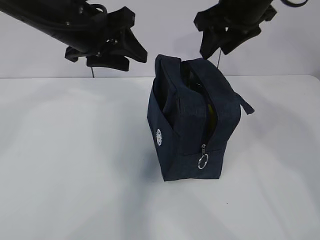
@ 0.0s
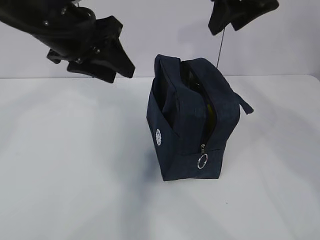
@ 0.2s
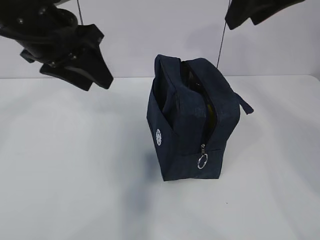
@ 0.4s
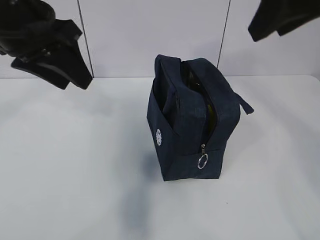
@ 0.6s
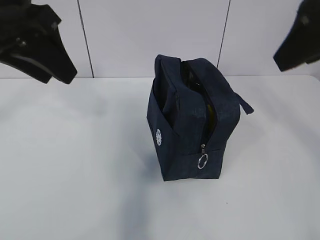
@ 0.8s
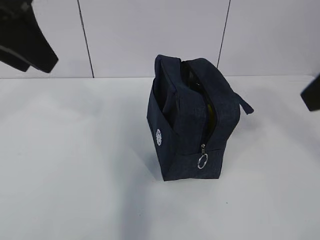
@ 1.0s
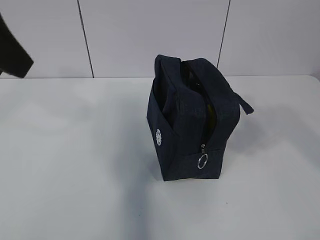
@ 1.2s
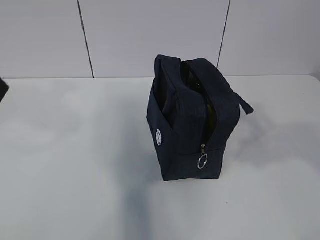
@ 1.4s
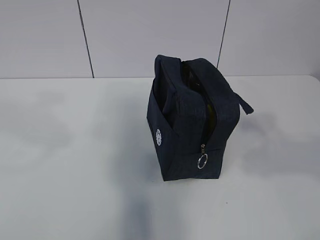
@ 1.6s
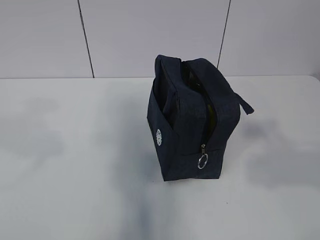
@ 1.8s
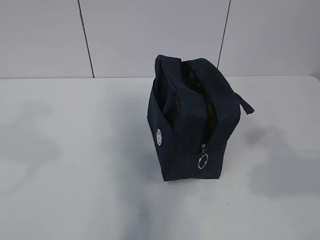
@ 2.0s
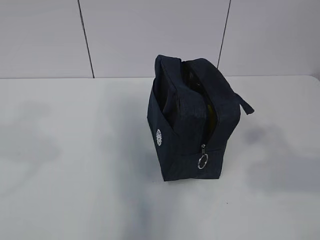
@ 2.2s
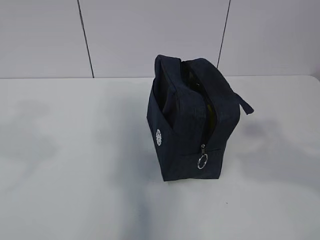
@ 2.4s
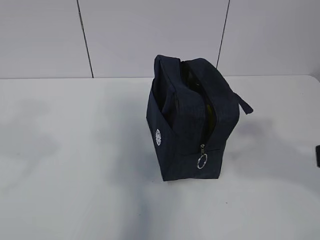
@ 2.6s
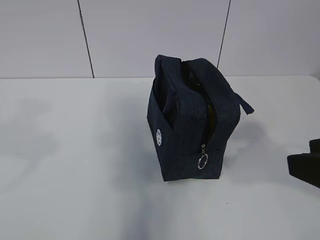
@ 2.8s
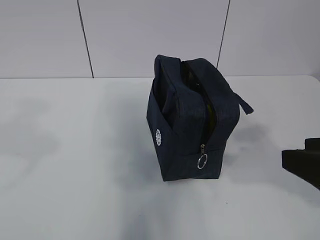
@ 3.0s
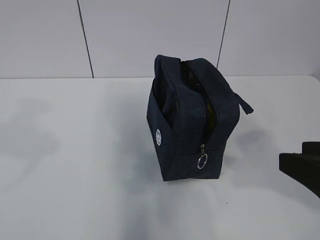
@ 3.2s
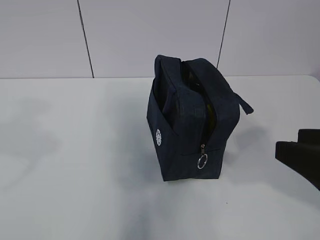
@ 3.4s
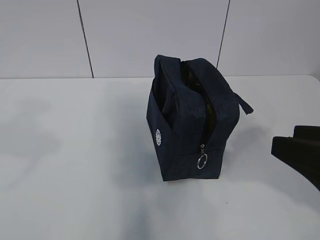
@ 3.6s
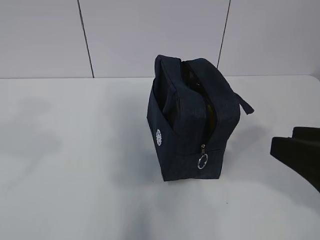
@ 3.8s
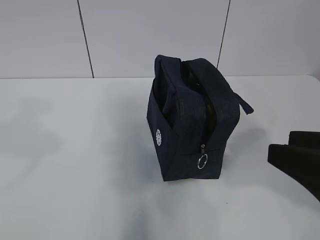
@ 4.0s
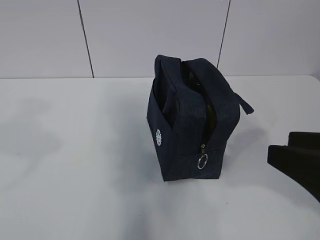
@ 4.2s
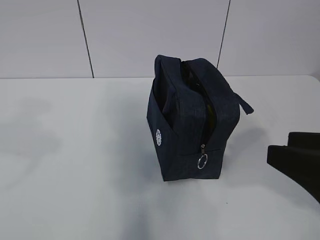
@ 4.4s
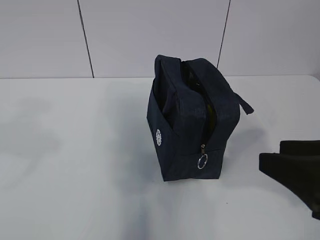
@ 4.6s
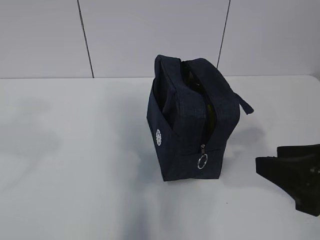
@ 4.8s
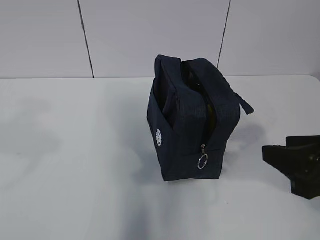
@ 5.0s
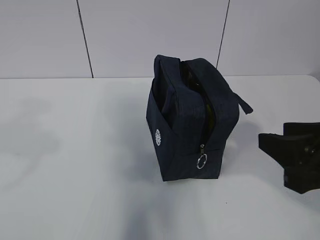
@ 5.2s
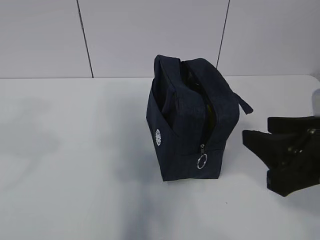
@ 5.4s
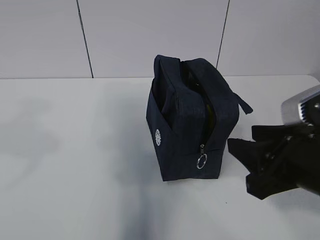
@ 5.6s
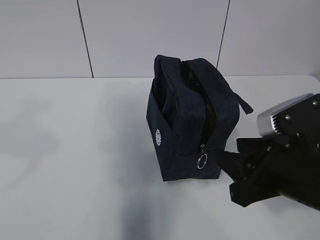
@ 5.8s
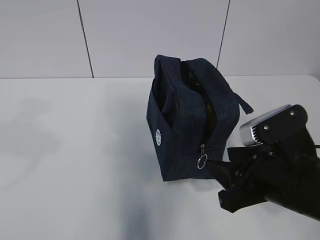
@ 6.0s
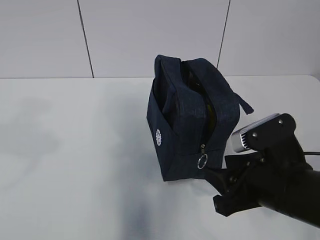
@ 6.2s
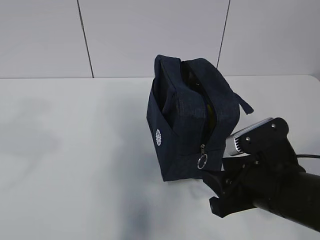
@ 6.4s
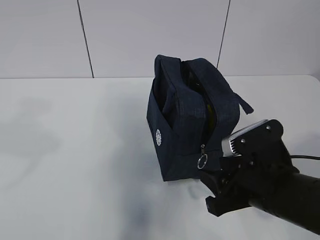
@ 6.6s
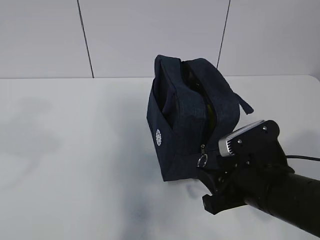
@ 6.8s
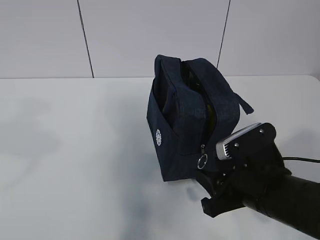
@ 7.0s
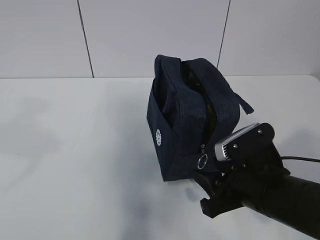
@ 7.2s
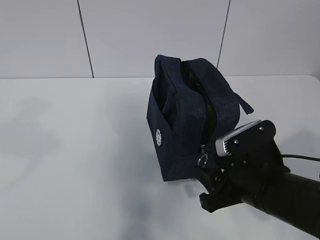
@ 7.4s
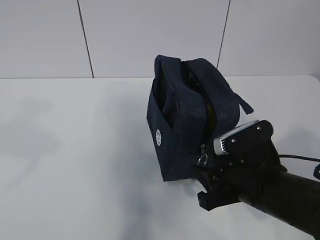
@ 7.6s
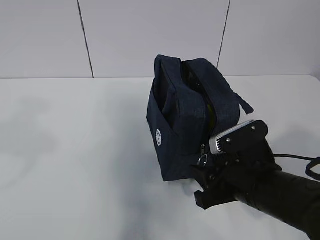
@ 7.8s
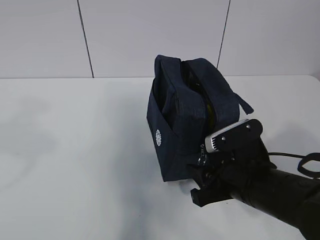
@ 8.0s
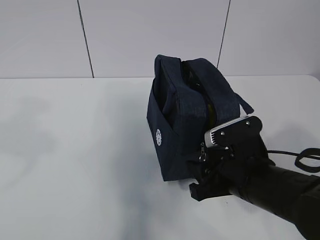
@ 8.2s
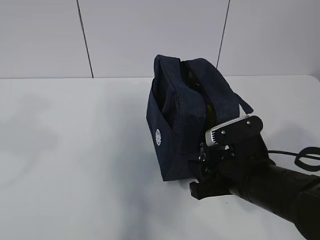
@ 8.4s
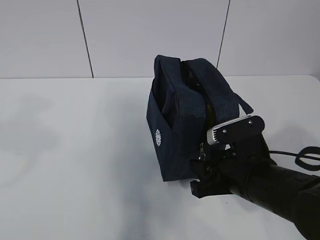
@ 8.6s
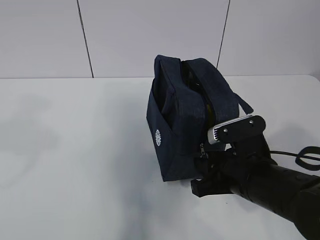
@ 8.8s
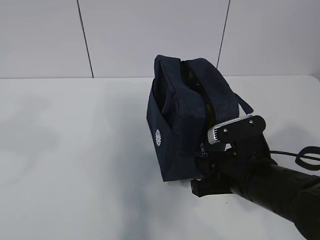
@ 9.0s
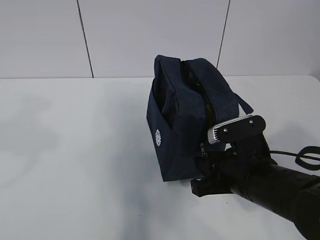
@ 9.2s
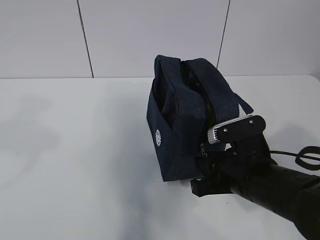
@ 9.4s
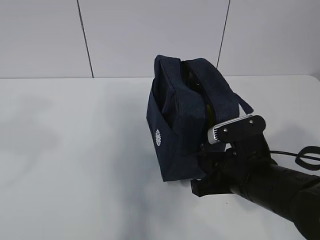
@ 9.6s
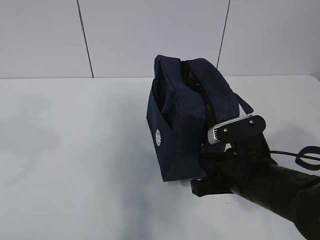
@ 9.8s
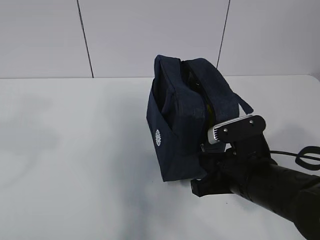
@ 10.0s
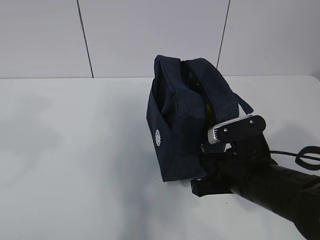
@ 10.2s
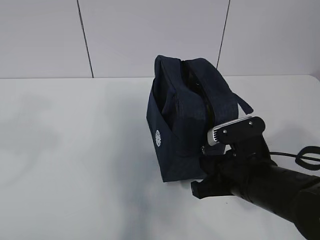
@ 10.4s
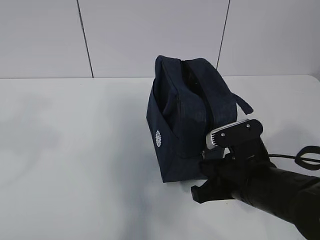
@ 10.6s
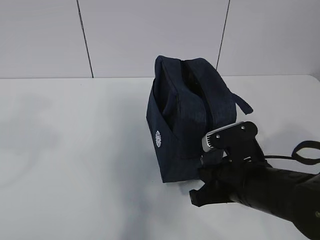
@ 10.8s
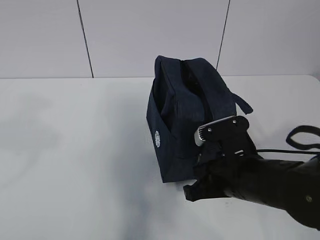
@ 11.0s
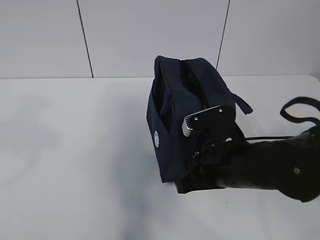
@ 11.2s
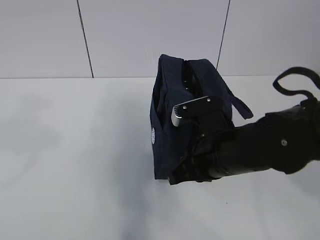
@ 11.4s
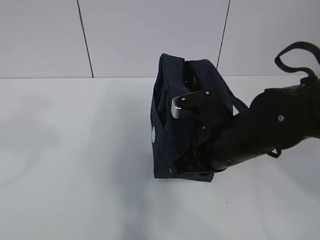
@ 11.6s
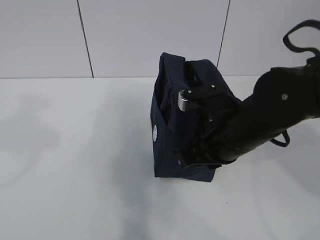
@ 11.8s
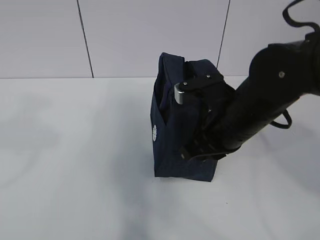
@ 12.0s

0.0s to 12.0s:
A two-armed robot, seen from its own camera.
Step, 0.0s to 11.8s: Pull the zipper with your right hand.
0.0s to 1.6s: The left gripper moves backward, to the left and upward, some 25 cm. Meanwhile the right gripper is displaced backward by approximately 30 cm.
1.6s to 3.0s: The right gripper is displaced downward by roughly 10 cm.
3.0s to 4.4s: The grippers move only a little.
4.4s to 6.0s: The right gripper shifts about 10 cm downward, forward and to the left.
6.0s to 7.6s: The right gripper is displaced downward by about 5 cm.
7.6s to 9.0s: There are only small adjustments of the grippers.
9.0s to 10.4s: The right gripper closes.
10.4s to 12.0s: The right gripper shifts approximately 10 cm upward and forward.

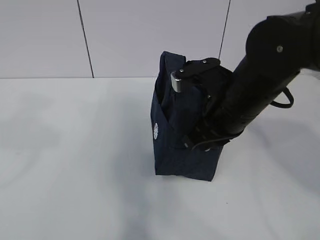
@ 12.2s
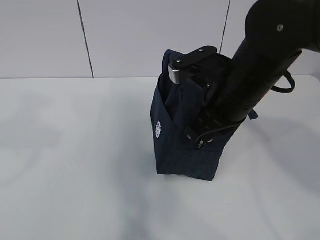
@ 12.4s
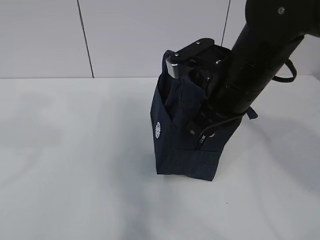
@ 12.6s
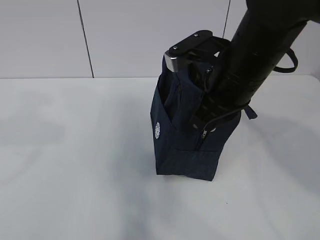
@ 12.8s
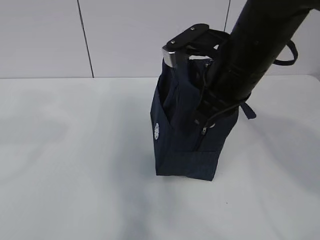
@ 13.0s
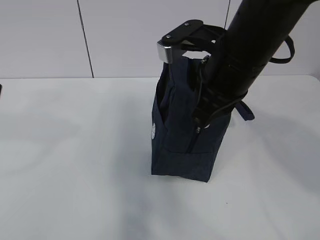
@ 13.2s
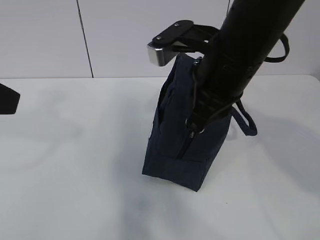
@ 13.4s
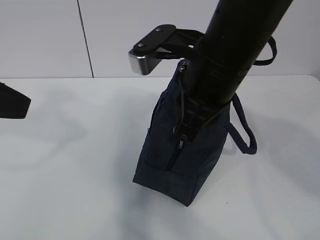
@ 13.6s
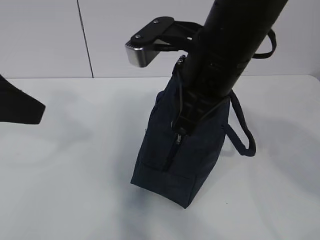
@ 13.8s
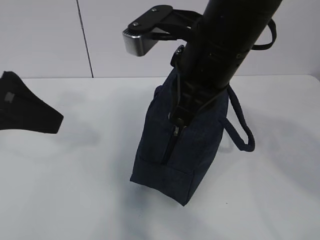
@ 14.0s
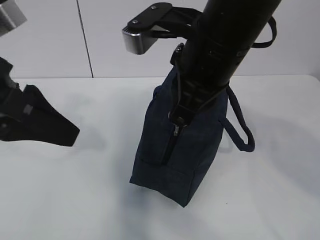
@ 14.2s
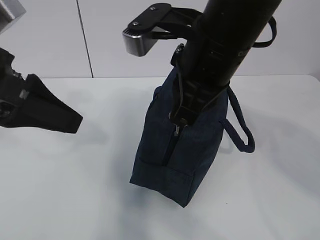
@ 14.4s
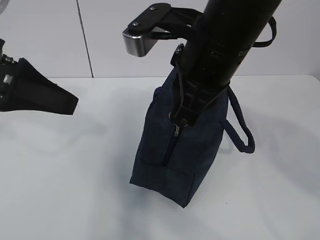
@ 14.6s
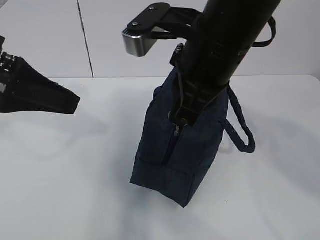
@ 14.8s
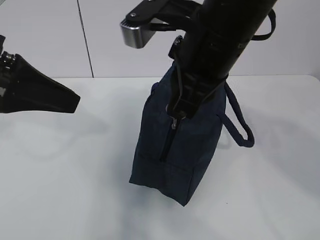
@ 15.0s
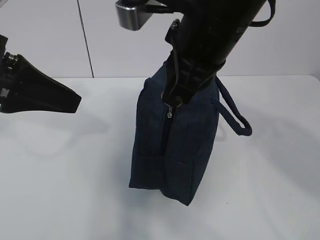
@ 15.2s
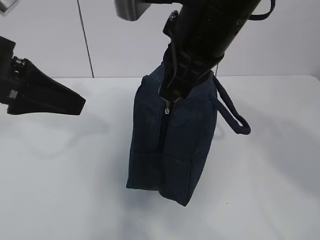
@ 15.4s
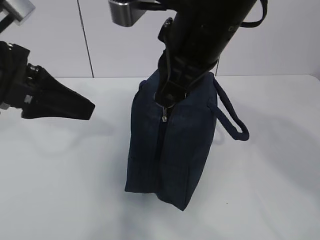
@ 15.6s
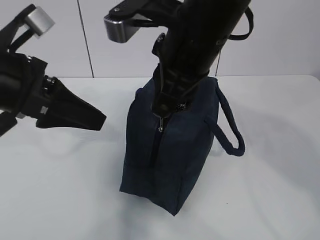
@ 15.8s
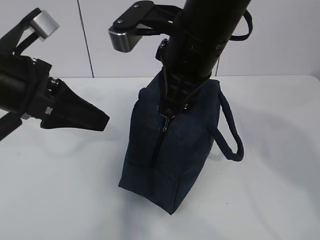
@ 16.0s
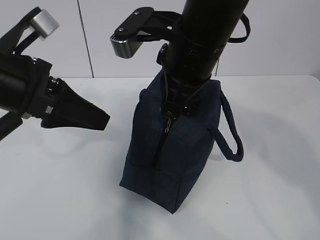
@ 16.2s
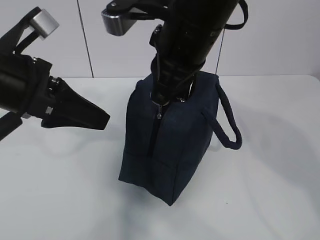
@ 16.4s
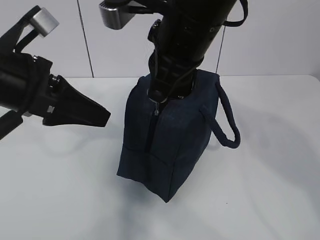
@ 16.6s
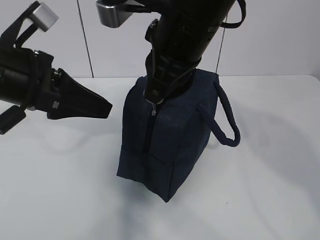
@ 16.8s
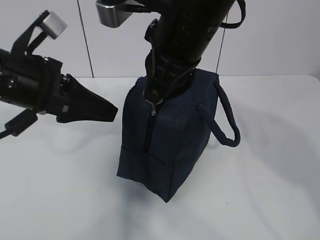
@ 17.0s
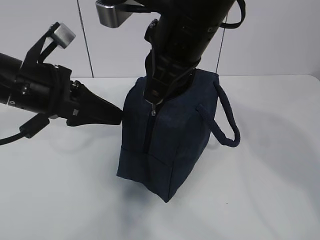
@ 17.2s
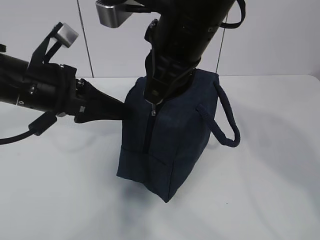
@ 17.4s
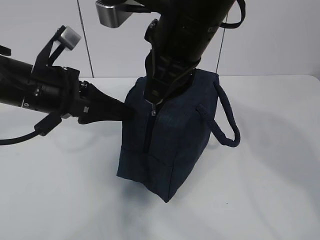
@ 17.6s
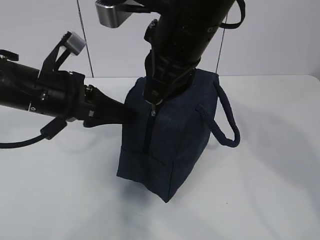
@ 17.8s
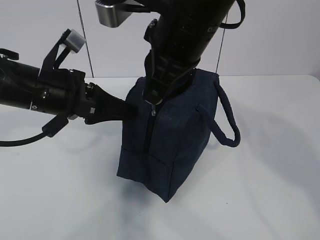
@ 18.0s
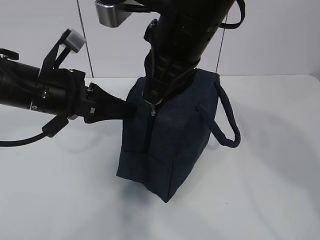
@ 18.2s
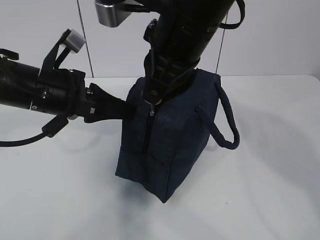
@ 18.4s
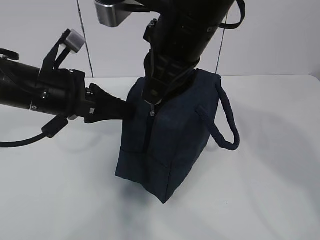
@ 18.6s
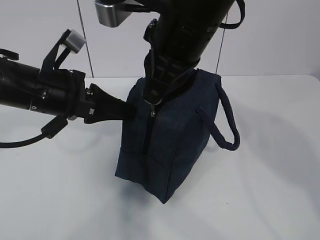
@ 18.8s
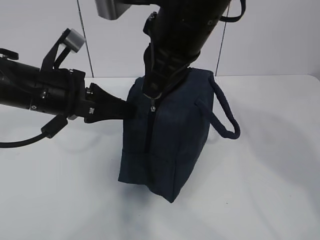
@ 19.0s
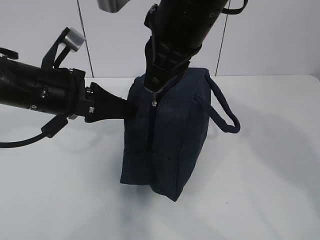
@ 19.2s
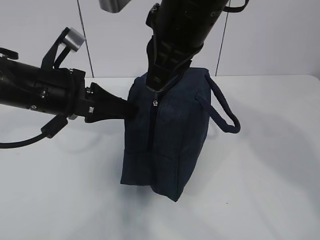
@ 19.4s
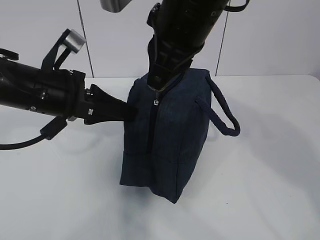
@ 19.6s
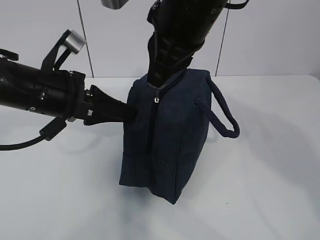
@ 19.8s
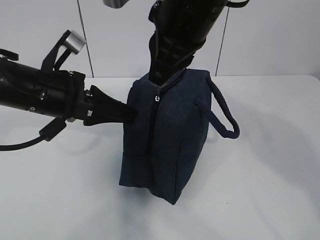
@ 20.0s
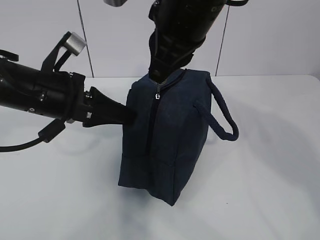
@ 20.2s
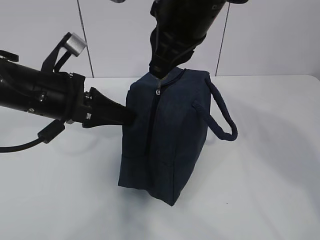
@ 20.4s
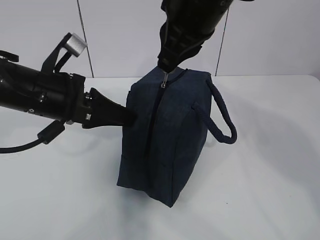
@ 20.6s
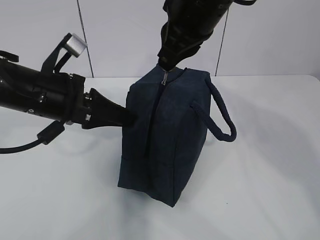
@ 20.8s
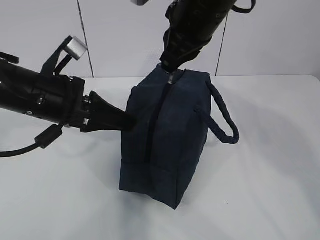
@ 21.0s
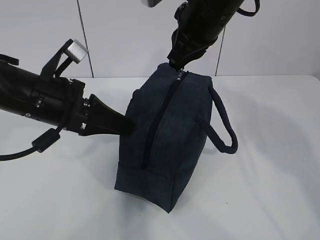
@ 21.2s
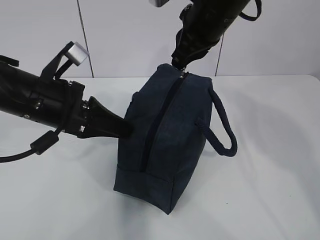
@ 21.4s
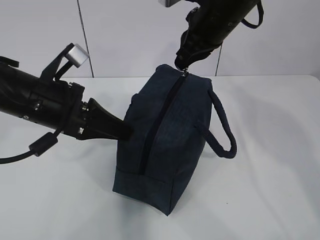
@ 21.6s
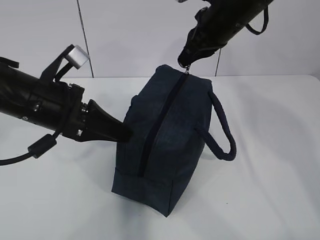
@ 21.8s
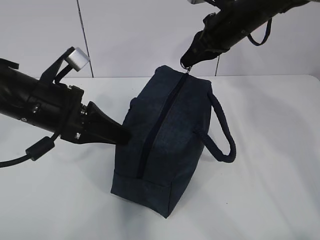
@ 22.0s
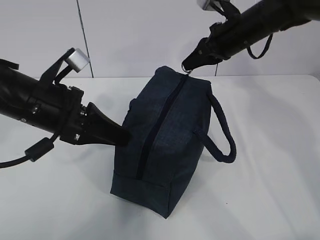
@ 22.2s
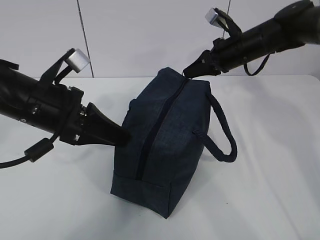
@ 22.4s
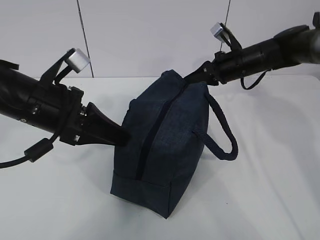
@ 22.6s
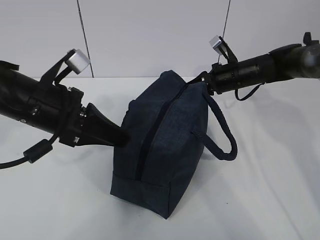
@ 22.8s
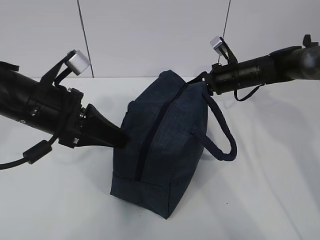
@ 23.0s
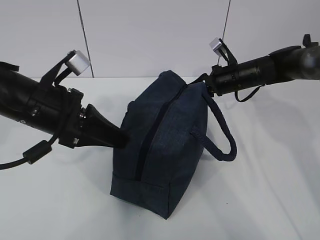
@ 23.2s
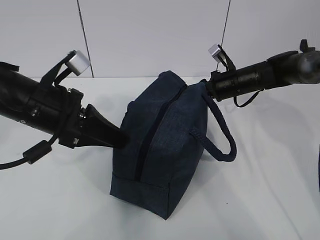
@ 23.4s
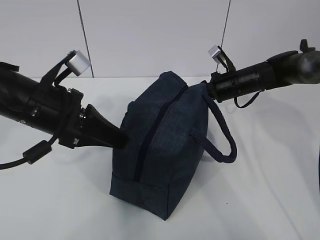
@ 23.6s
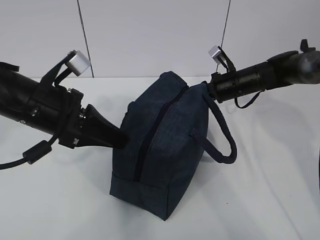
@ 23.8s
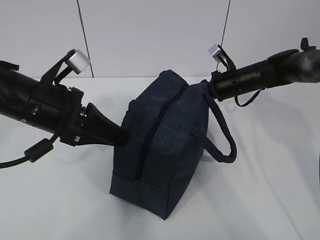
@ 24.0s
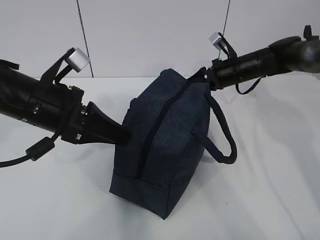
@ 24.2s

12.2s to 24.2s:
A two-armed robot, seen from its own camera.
12.2s to 13.8s: The right gripper shifts some 10 cm upward, while the left gripper is displaced forward by some 5 cm.
13.8s to 15.2s: The left gripper shifts approximately 5 cm forward.
15.2s to 16.6s: The left gripper ends up some 5 cm from where it was.
16.6s to 18.2s: The left gripper travels downward by approximately 5 cm.
18.2s to 19.8s: The grippers move only a little.
19.8s to 21.2s: The right gripper shifts roughly 5 cm forward.
21.2s to 22.6s: The right gripper heads downward, to the right and forward, covering approximately 25 cm.
22.6s to 24.2s: The right gripper opens its fingers.
